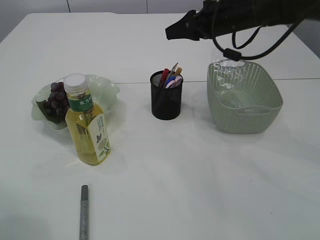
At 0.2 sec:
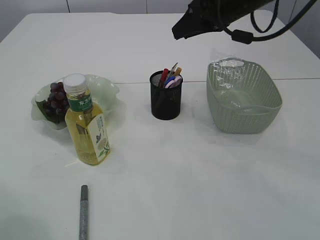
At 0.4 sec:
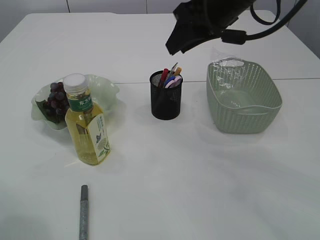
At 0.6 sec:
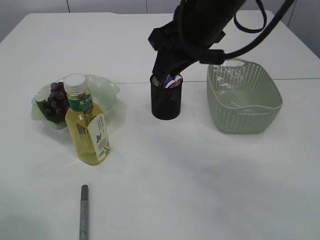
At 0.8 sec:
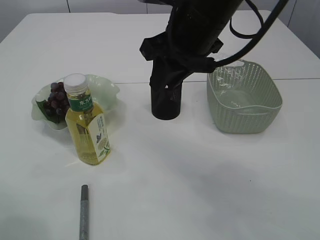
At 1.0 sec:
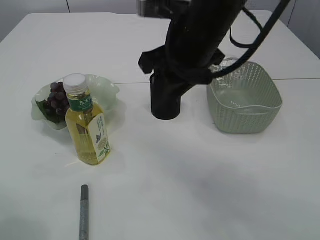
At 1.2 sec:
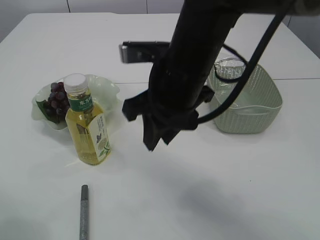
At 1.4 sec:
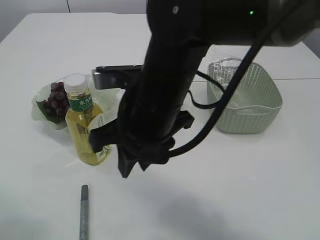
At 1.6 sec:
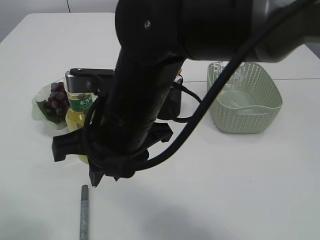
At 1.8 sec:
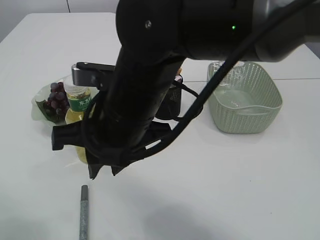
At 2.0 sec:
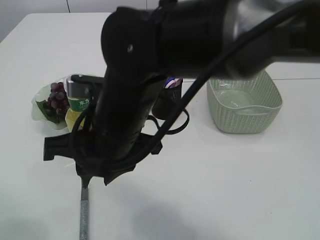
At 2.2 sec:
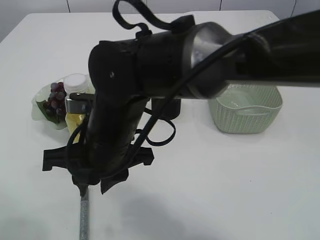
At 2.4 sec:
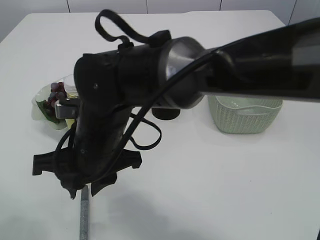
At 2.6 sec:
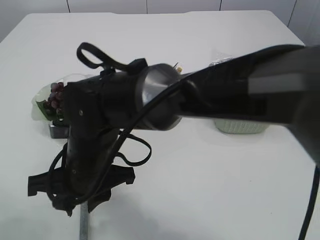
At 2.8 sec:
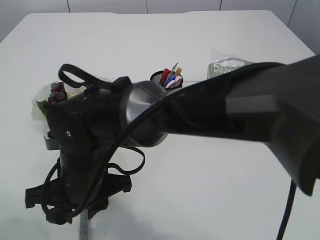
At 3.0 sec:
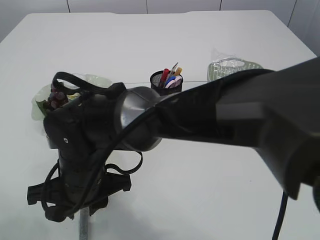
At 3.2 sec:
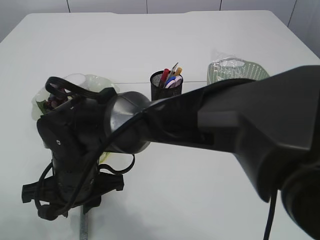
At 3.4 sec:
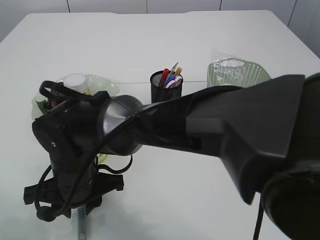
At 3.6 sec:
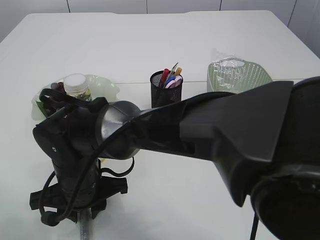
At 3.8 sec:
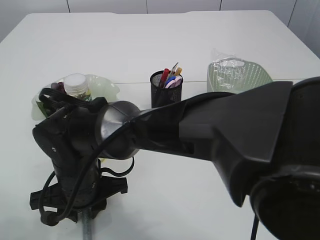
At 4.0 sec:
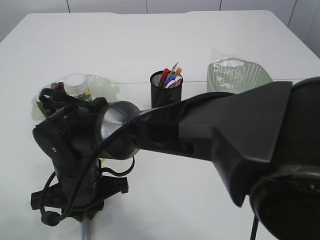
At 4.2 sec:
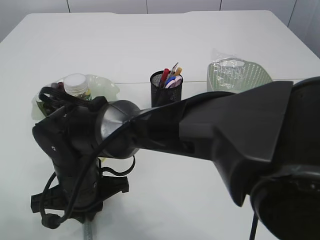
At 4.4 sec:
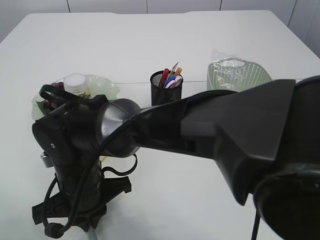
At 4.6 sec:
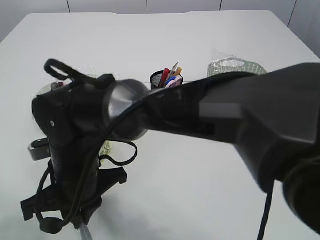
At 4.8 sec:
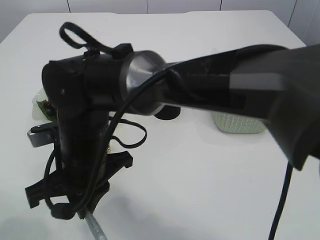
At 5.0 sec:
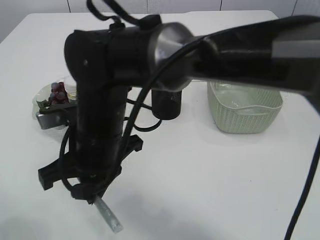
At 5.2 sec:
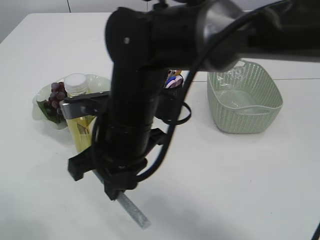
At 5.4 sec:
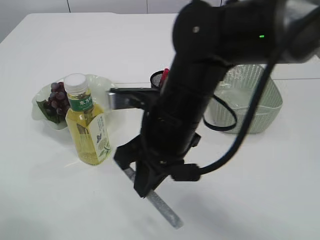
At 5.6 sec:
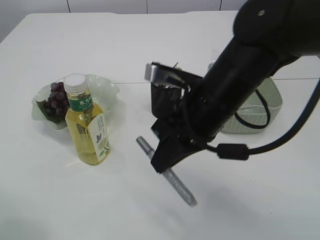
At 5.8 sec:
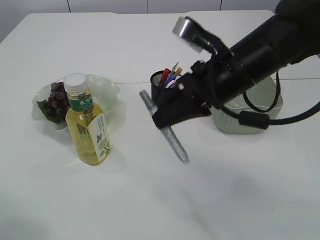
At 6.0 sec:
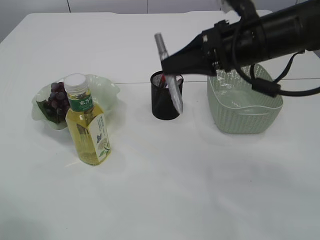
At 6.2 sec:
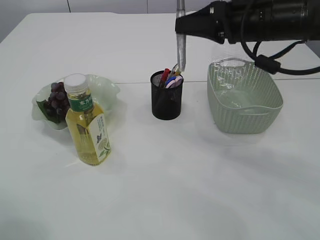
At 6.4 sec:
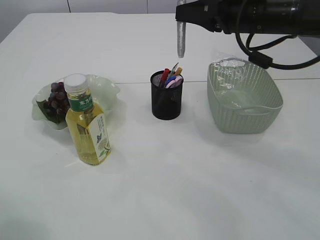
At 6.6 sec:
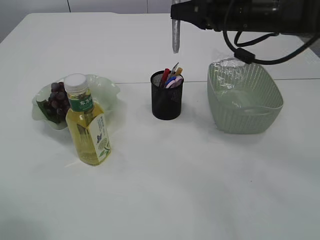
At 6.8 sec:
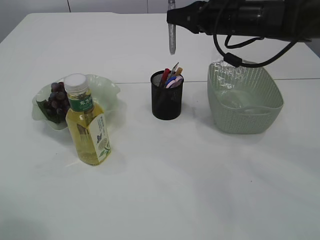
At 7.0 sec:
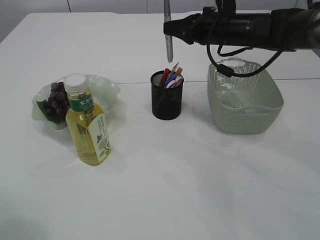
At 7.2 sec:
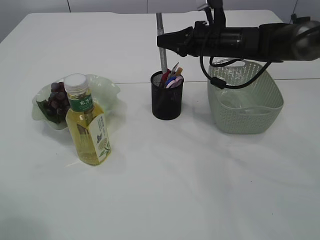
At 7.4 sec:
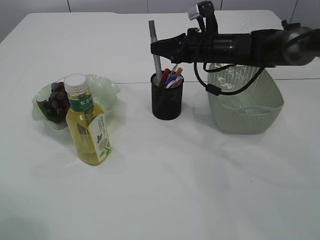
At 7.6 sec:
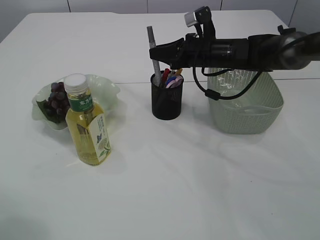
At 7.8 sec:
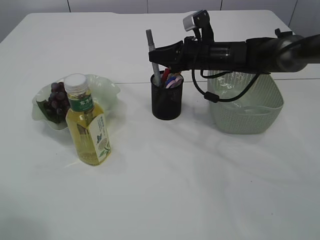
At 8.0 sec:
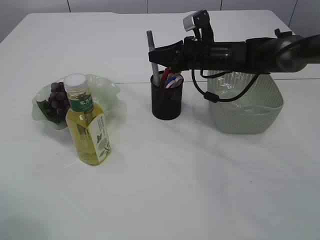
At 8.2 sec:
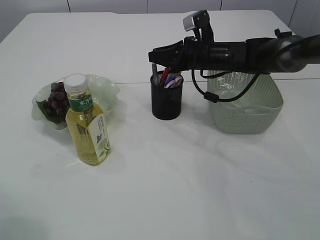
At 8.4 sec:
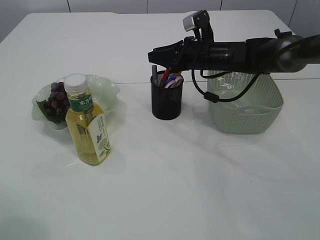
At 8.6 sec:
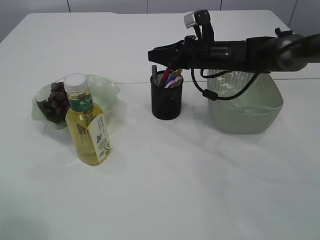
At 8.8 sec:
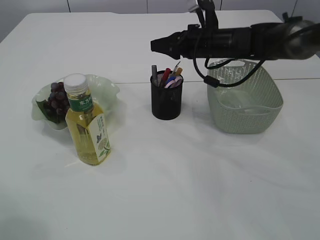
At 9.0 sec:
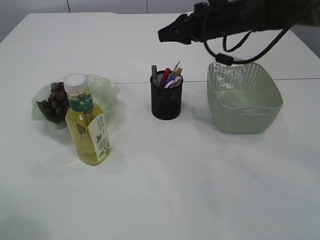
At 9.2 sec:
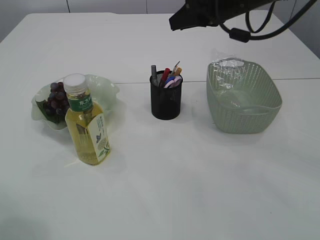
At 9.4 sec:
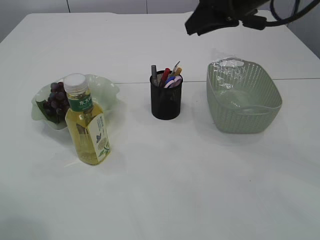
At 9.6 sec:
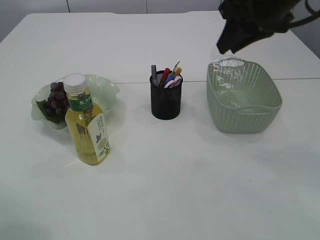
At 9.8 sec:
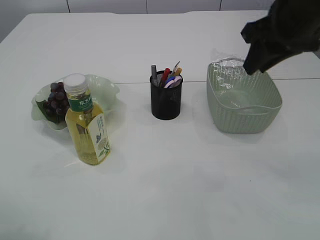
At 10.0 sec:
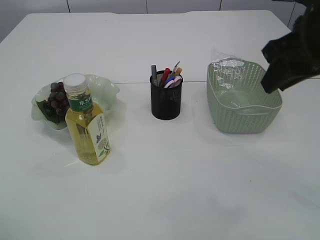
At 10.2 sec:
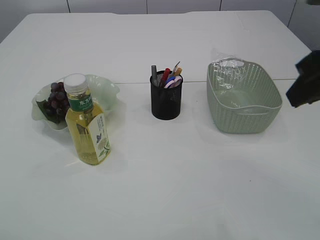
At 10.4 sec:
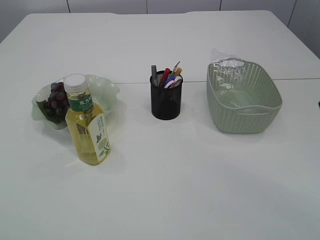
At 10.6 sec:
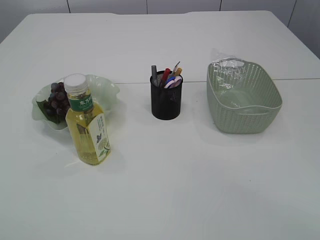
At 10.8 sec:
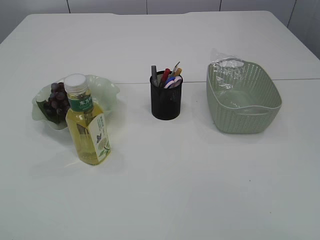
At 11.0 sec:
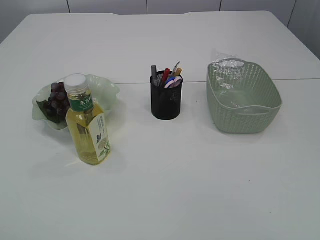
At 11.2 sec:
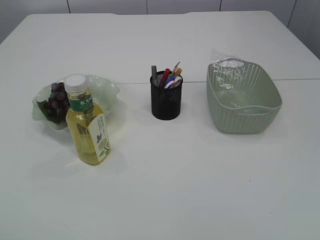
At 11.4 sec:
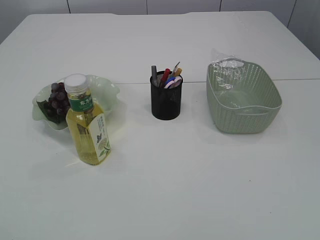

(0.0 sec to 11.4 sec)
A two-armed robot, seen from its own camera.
Step, 0.2 sec - 5.0 sec: pick up the silver glue.
Step, 5.2 sec - 8.8 sec: place the silver glue into the pen holder.
0.0 sec - 1.4 sec: The right gripper goes about 25 cm backward and to the left.
1.4 sec - 2.8 sec: The right gripper travels to the left and downward by approximately 15 cm.
4.2 sec - 5.6 sec: The right gripper travels to the right and upward by some 20 cm.
5.6 sec - 7.2 sec: The right gripper shifts about 20 cm forward.
7.2 sec - 8.6 sec: The grippers make only small movements.
8.6 sec - 10.0 sec: The right gripper shifts roughly 25 cm backward, upward and to the right.
10.0 sec - 11.4 sec: The right gripper is displaced backward by roughly 35 cm.

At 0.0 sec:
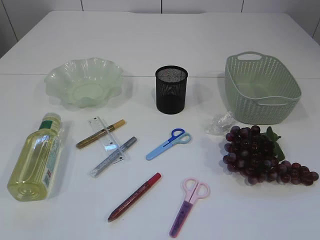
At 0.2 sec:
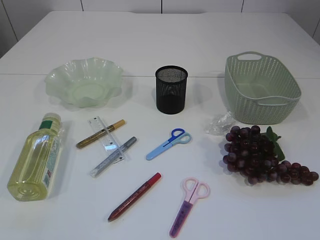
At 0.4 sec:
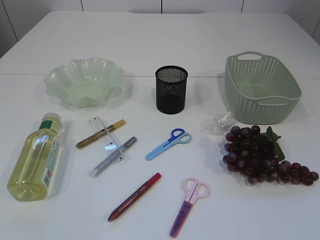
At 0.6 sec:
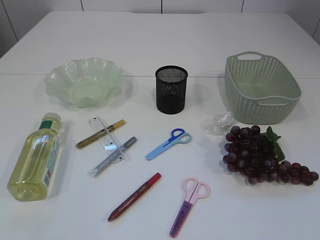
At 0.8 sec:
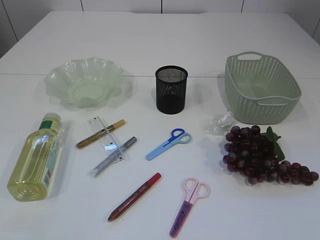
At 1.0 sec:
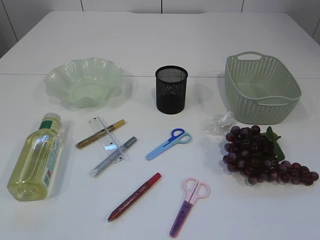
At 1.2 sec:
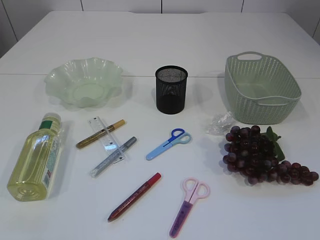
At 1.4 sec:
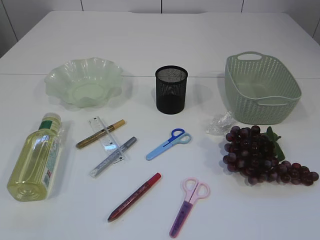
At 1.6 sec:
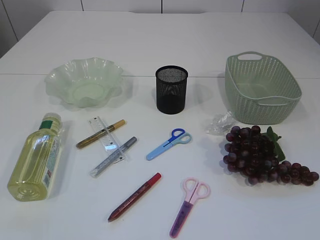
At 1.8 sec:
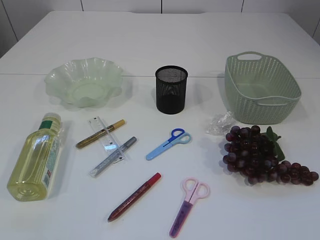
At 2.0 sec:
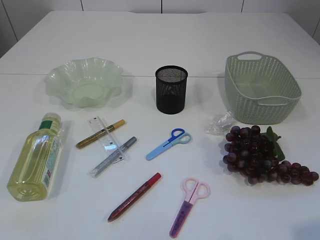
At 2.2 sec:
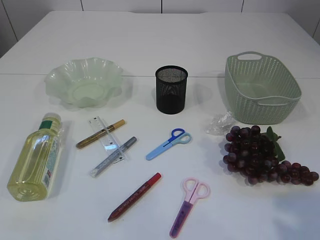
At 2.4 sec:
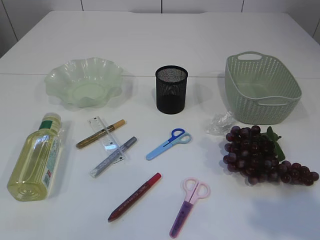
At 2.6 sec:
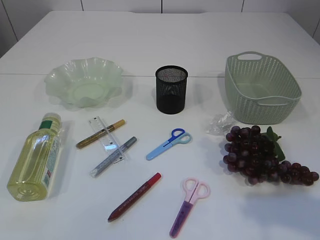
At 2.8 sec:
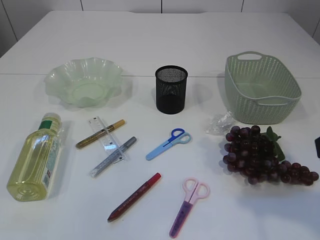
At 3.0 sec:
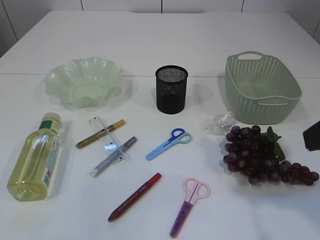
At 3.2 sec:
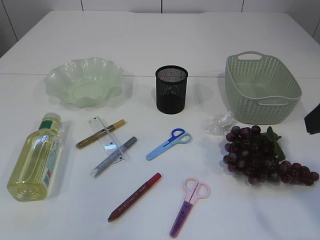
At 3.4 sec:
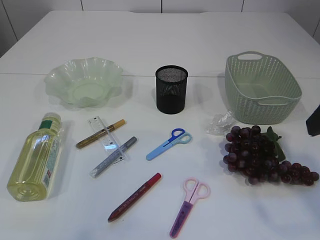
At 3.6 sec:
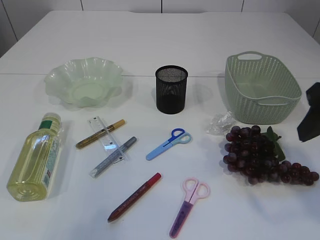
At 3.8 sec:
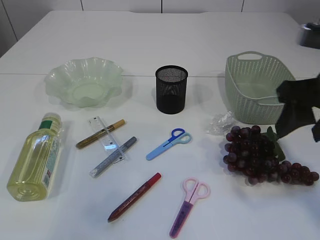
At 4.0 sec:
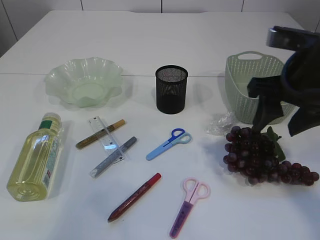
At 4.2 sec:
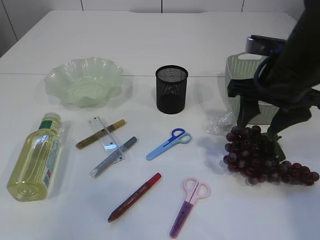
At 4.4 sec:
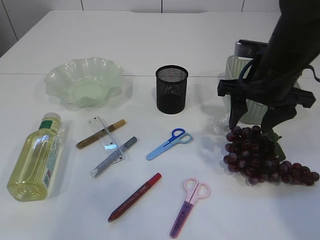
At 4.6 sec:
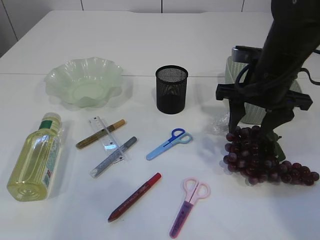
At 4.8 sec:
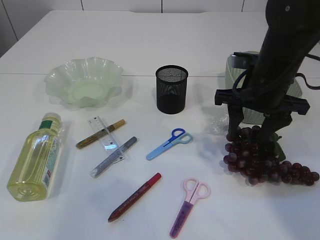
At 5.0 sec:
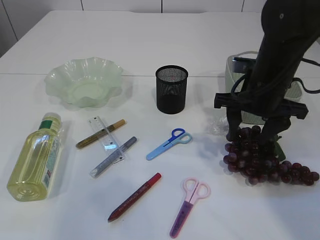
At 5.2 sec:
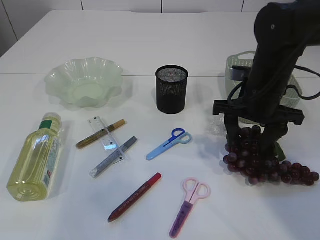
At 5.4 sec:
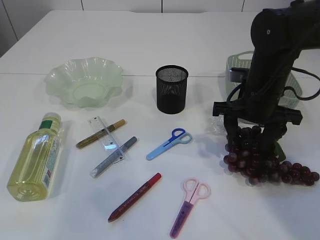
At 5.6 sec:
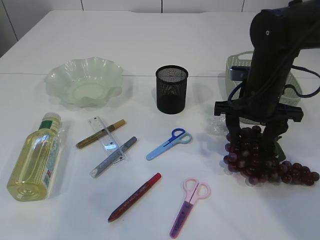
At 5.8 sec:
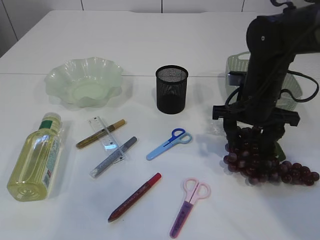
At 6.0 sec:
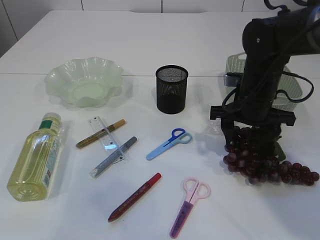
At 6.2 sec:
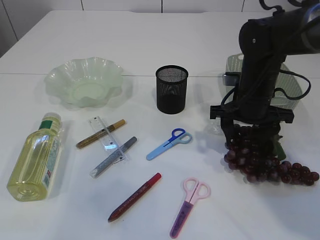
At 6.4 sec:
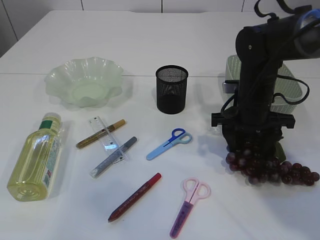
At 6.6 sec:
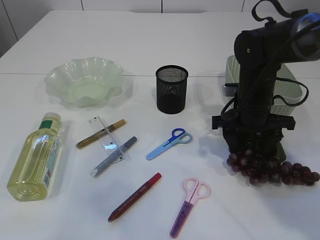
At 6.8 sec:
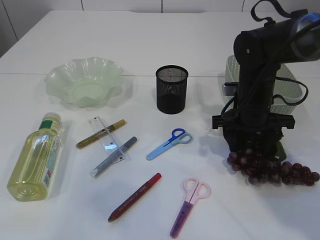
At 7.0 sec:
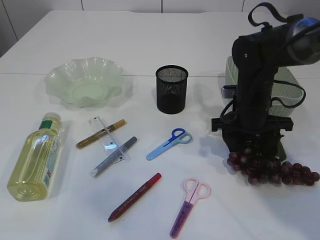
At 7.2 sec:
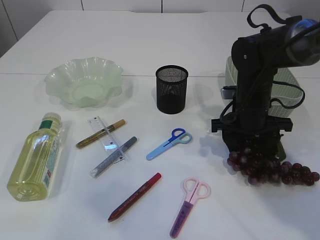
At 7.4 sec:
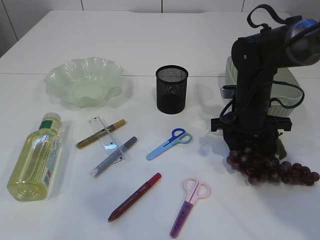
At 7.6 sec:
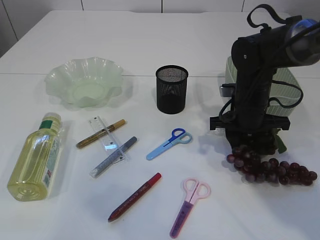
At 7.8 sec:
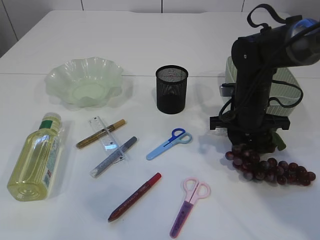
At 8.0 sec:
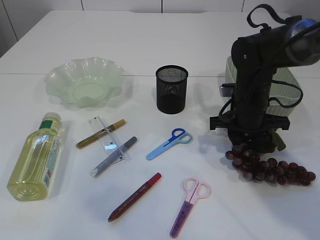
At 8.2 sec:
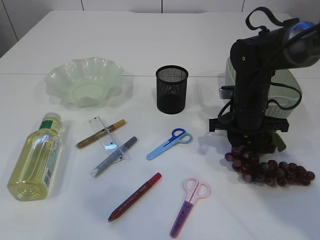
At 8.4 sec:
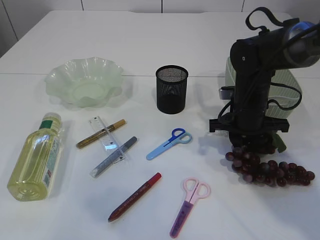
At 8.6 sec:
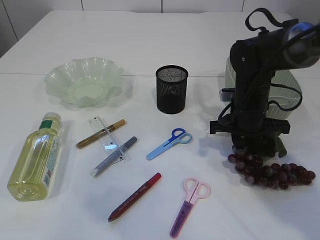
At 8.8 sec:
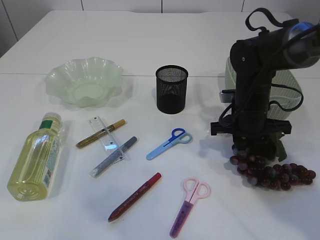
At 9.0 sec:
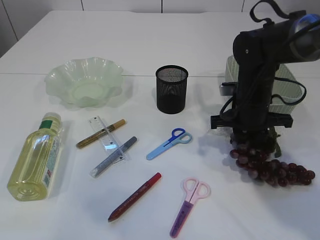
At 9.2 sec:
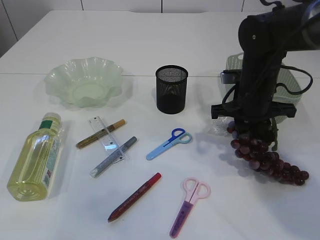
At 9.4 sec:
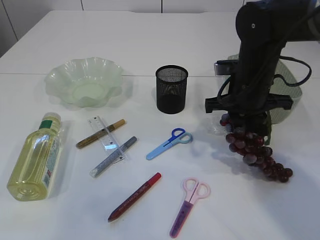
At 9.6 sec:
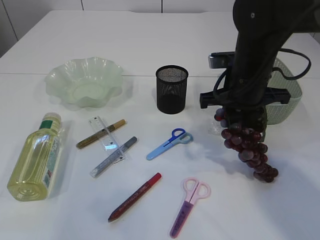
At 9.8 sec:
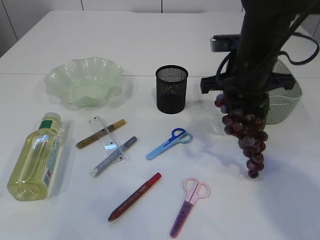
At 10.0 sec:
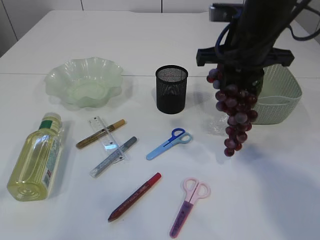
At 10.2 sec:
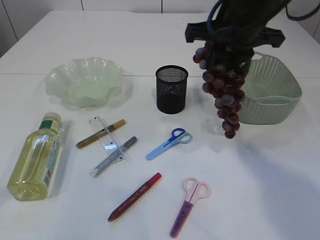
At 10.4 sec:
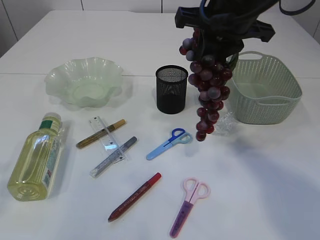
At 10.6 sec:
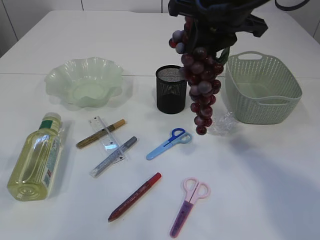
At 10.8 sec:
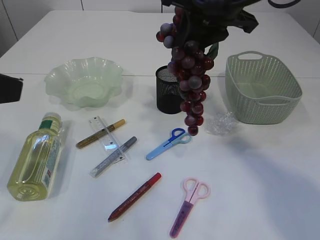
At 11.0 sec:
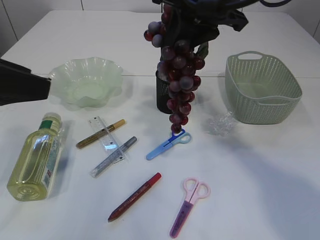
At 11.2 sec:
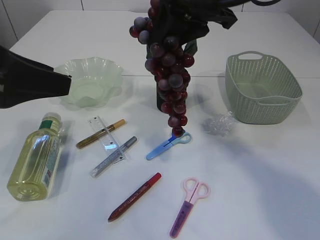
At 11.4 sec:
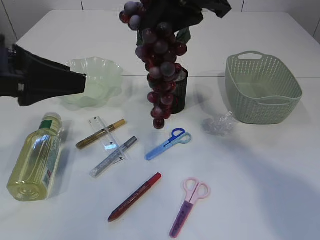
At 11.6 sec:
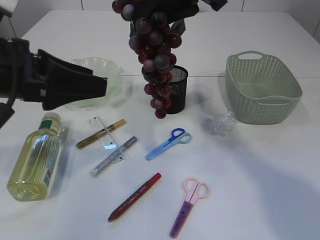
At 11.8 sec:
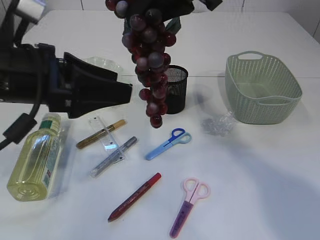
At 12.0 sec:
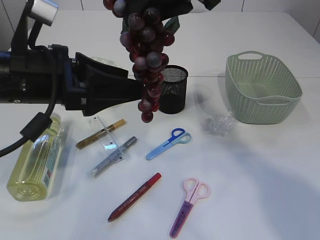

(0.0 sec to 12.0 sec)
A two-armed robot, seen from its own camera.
Step, 0.0 sec - 10.0 sec: Pick up the grapes.
1.6 sec - 3.0 sec: The right gripper is displaced forward by about 20 cm.
3.0 sec - 4.4 sec: The right gripper heads forward and downward, covering approximately 20 cm.
4.4 sec - 6.0 sec: The right gripper travels downward by about 5 cm.
6.0 sec - 7.6 sec: The right gripper closes its fingers.
7.6 sec - 9.0 sec: The right gripper closes up.
9.0 sec - 10.4 sec: The right gripper is displaced upward by about 20 cm.
10.4 sec - 12.0 sec: The right gripper moves upward, about 5 cm; the left gripper goes roughly 20 cm forward, to the right and downward.
